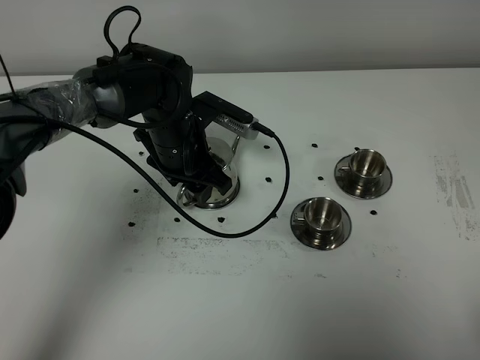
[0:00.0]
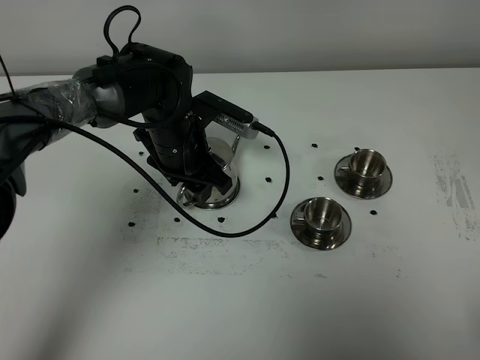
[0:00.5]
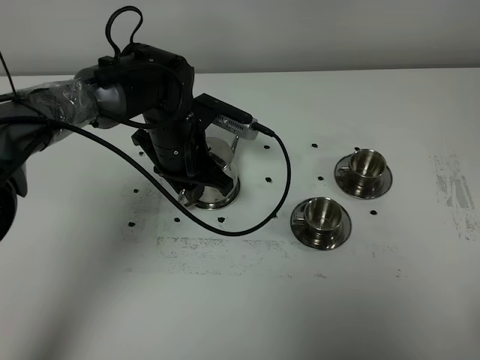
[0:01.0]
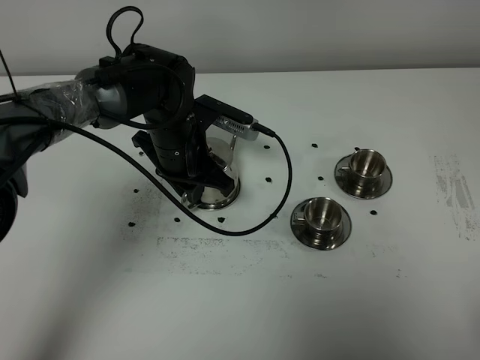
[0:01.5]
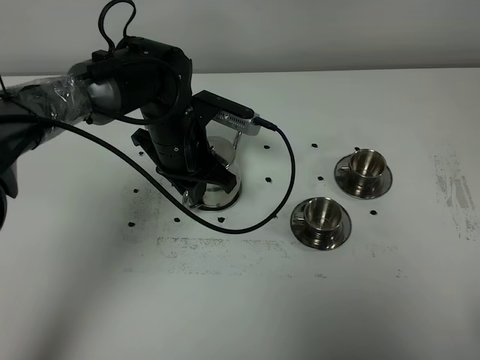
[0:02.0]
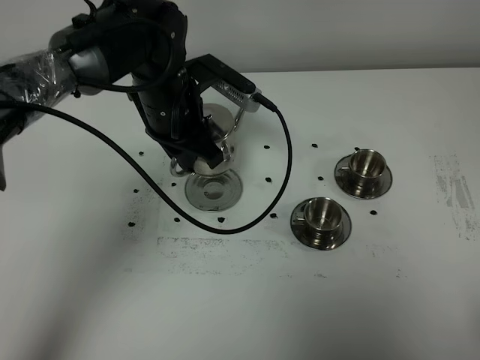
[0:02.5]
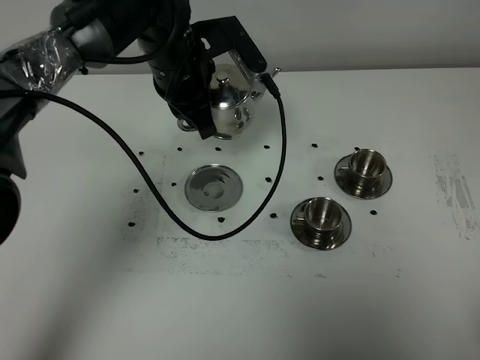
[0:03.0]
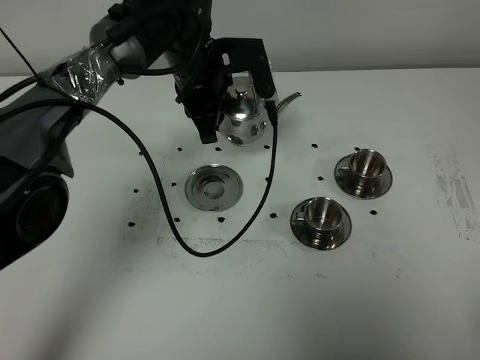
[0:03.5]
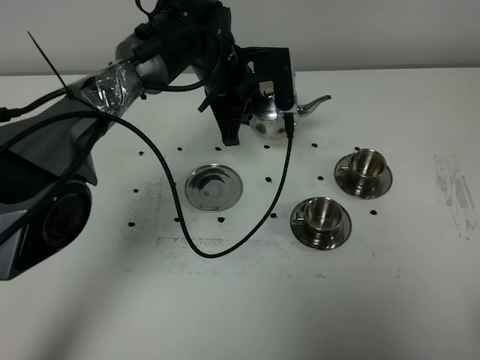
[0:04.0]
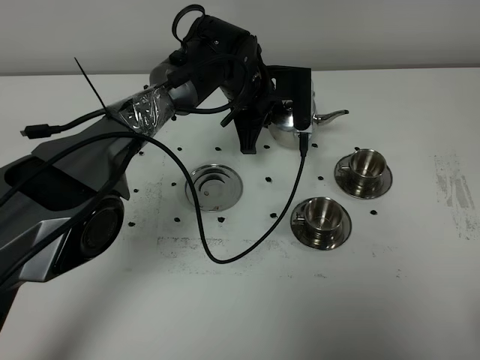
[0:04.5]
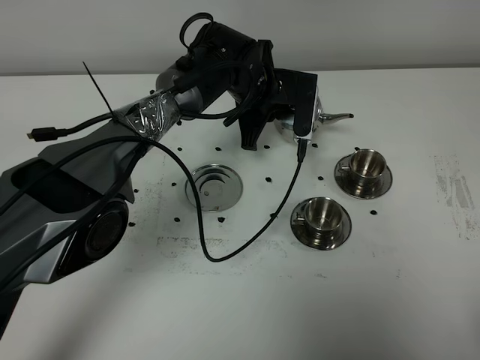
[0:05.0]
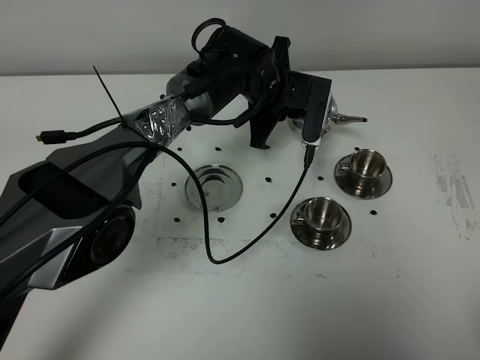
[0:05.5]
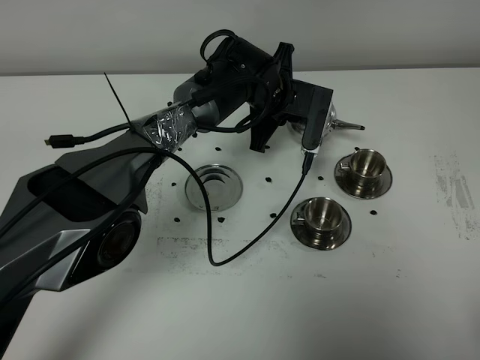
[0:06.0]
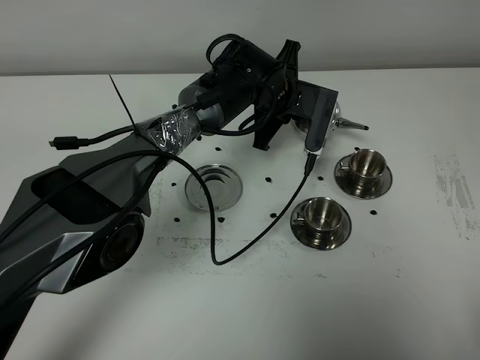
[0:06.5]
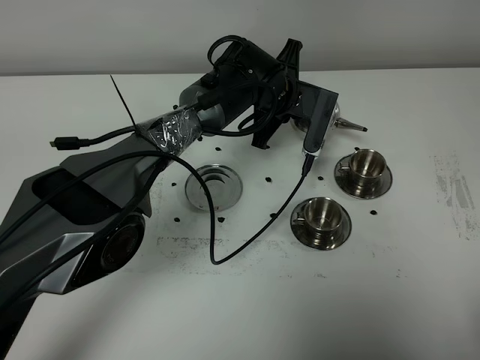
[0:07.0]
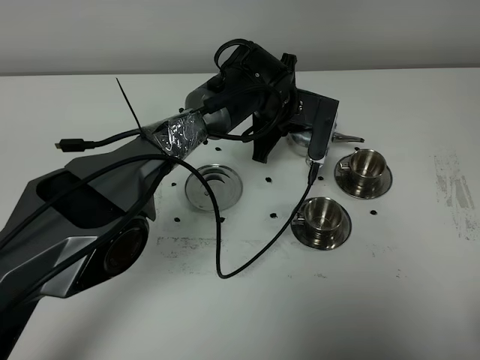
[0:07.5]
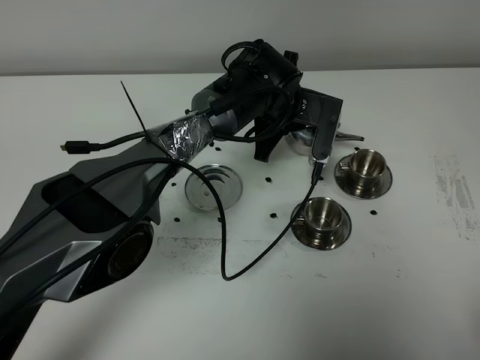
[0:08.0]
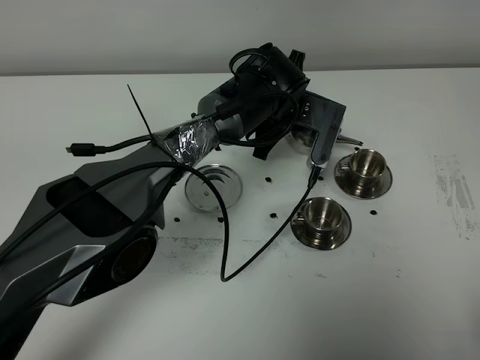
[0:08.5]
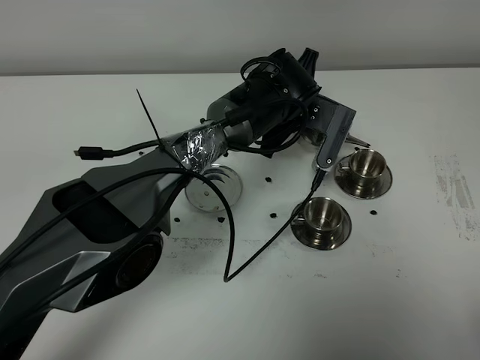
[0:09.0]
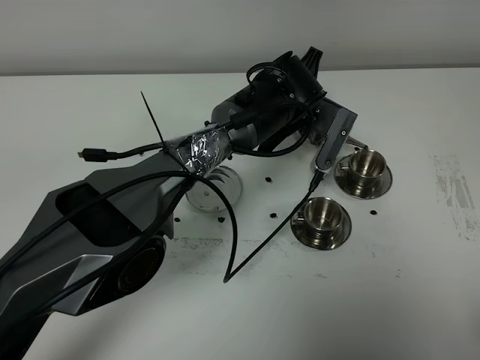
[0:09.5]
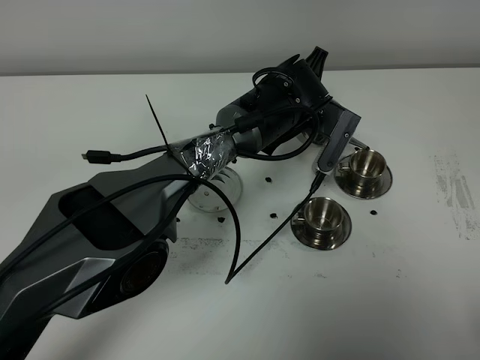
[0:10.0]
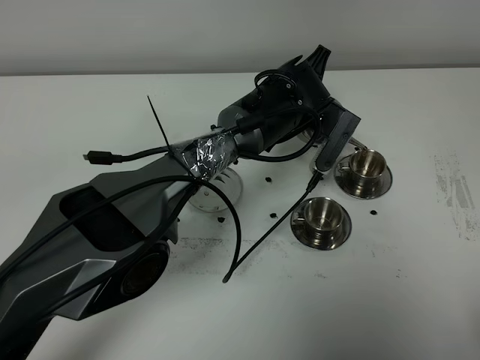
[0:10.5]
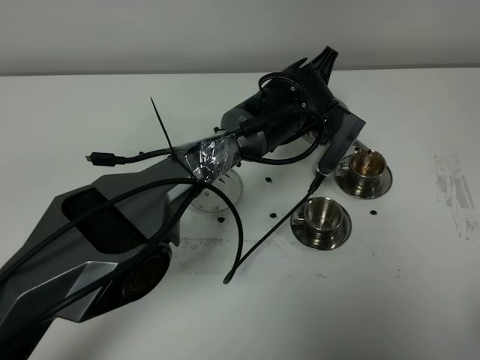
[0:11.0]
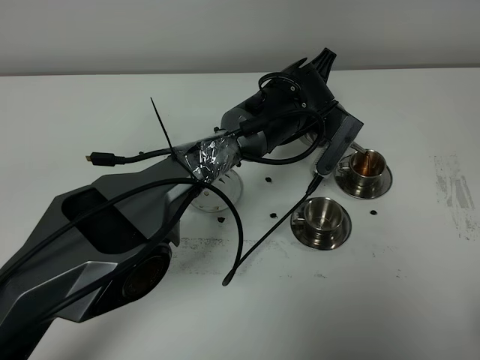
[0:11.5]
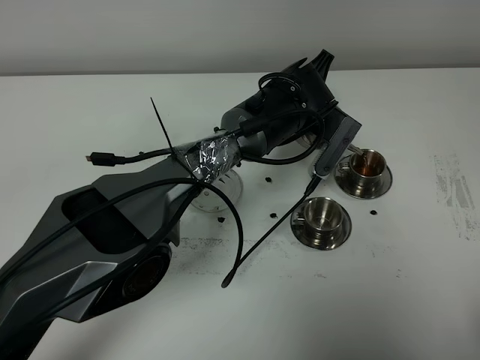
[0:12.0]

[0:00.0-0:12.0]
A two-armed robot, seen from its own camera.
Task of the whole recording: grasp the stainless steel teapot and pour the tea into the two stainless steel teacups one by one, put the stainless steel teapot back in its original place.
Step, 0:00.0 to 0:02.0: Pick up the teapot with the left gripper.
0:00.0 to 0:02.0: The left gripper closes up.
0:02.0 to 0:04.0: The left gripper heads forward and to the right, covering roughly 10 cm.
0:04.0 to 0:06.0: The left gripper shifts about 5 cm to the right.
0:06.0 to 0:10.0: The grippers make only small movements.
0:10.0 to 0:12.0: There are only small adjustments of the grippers.

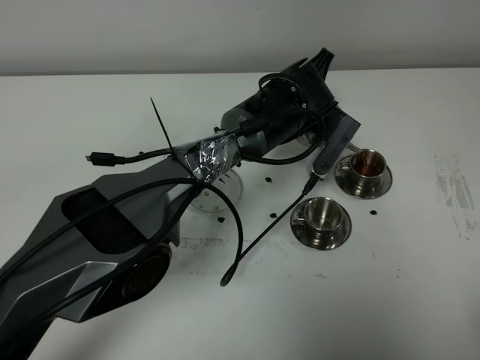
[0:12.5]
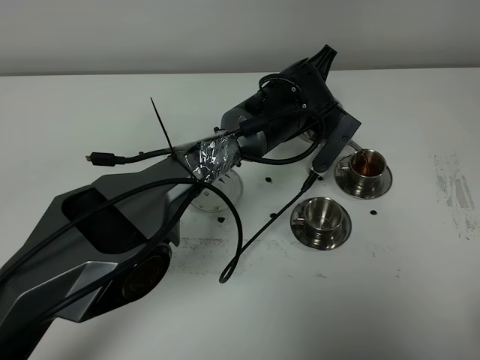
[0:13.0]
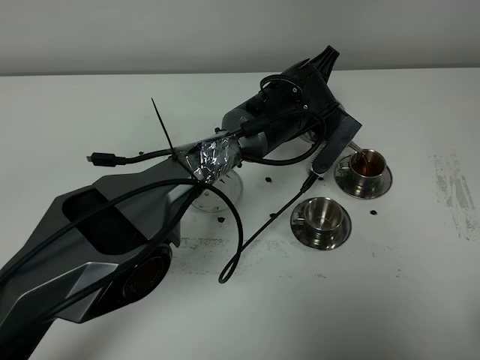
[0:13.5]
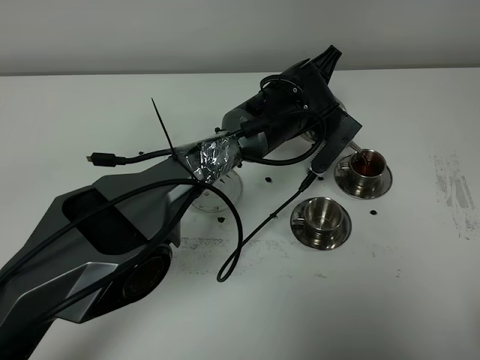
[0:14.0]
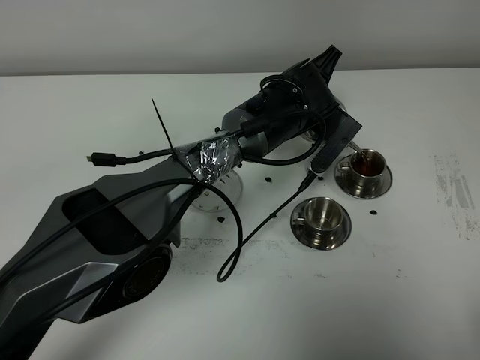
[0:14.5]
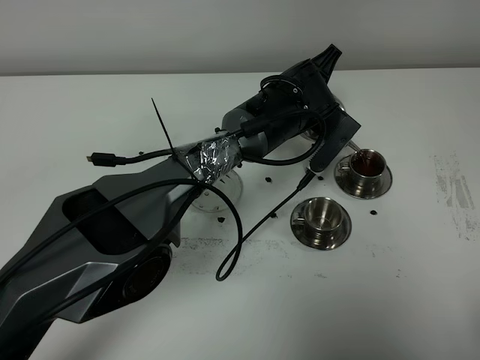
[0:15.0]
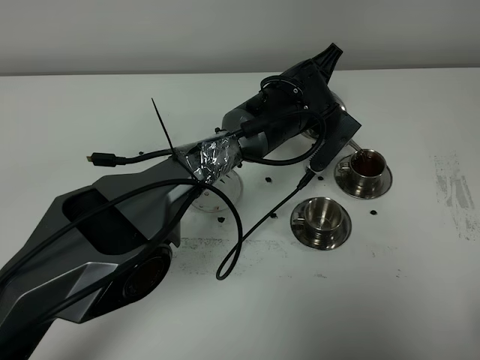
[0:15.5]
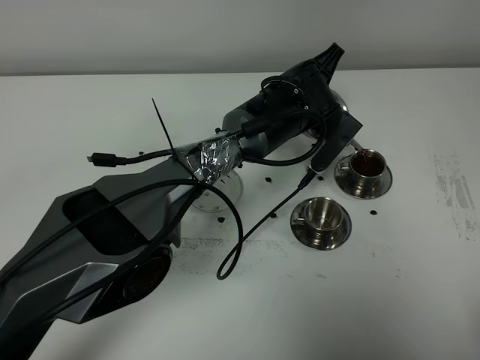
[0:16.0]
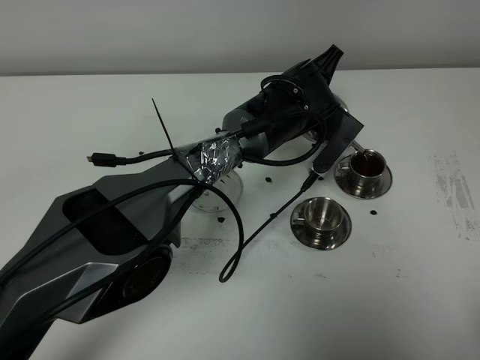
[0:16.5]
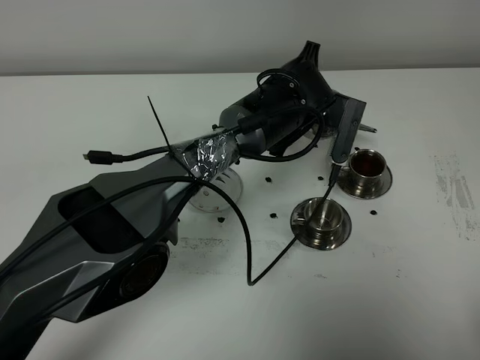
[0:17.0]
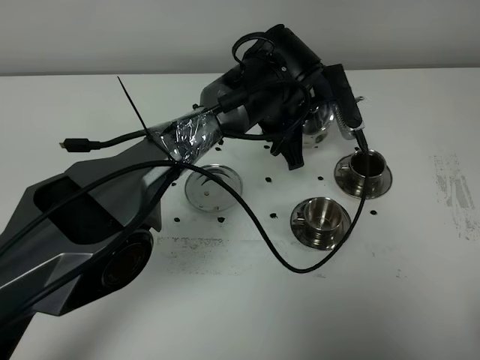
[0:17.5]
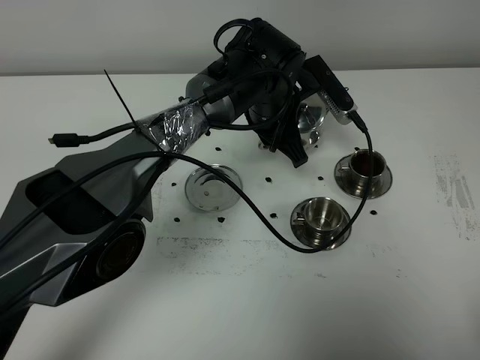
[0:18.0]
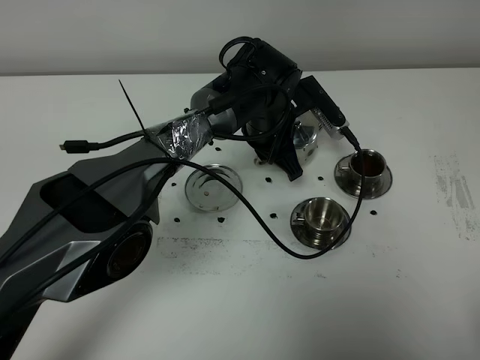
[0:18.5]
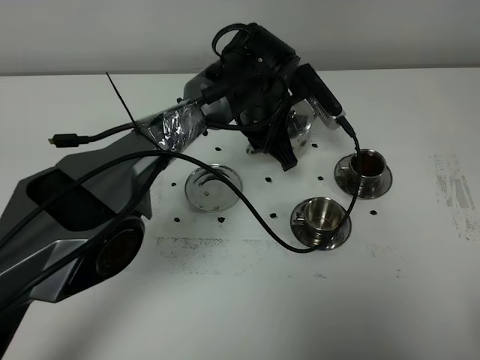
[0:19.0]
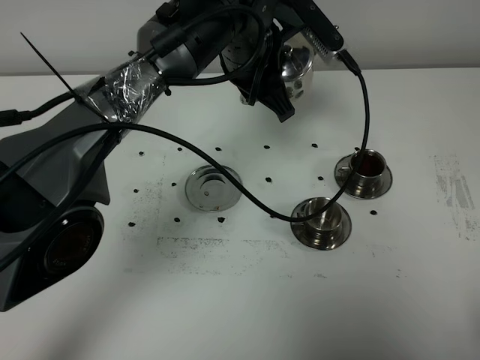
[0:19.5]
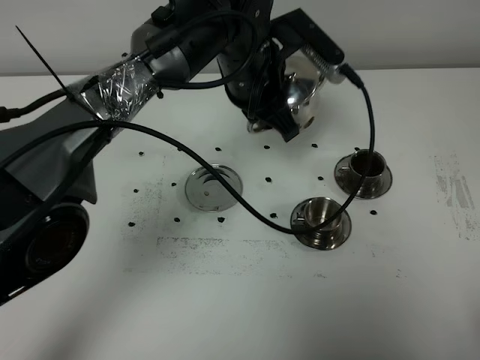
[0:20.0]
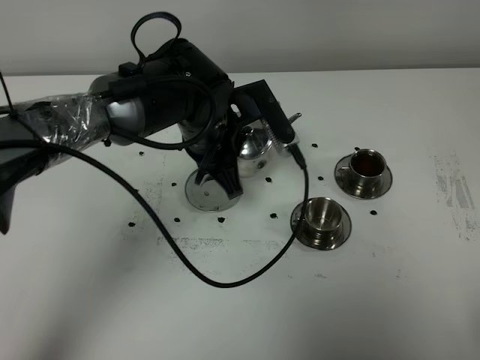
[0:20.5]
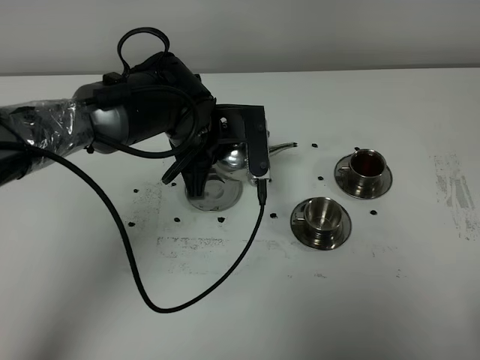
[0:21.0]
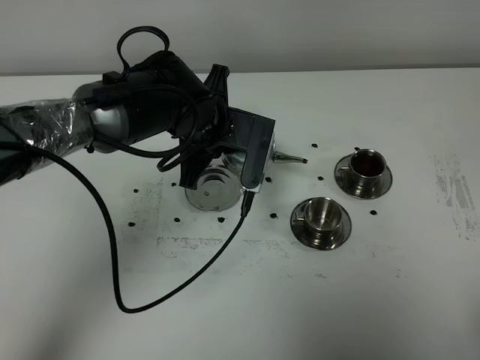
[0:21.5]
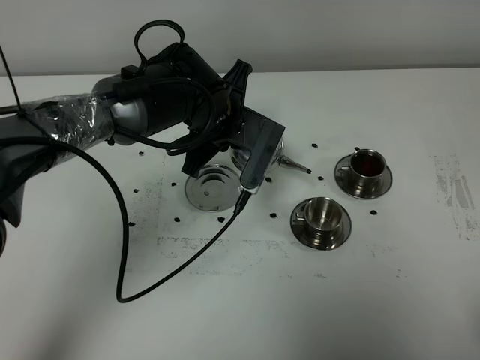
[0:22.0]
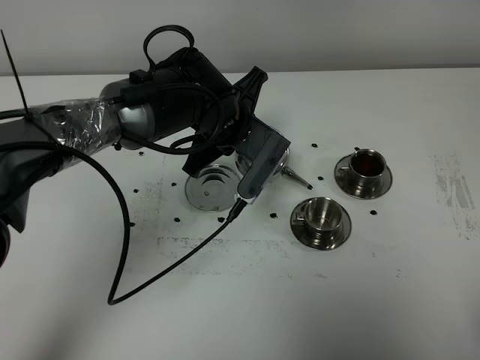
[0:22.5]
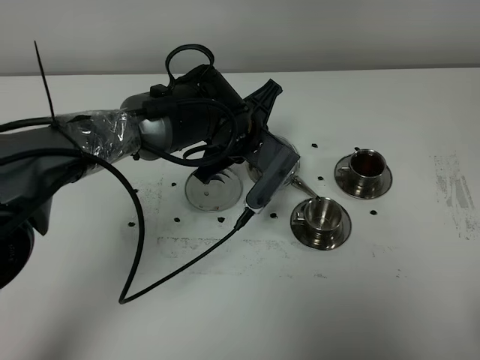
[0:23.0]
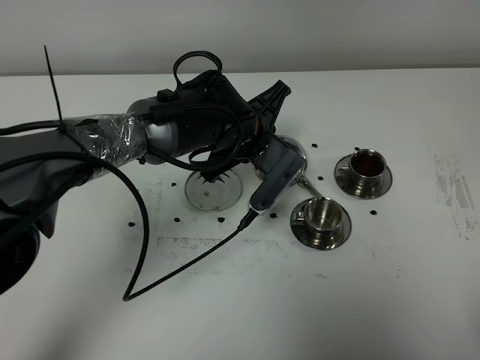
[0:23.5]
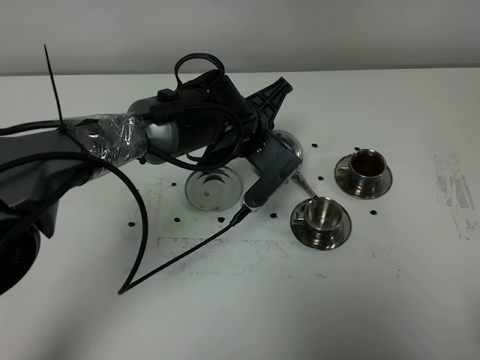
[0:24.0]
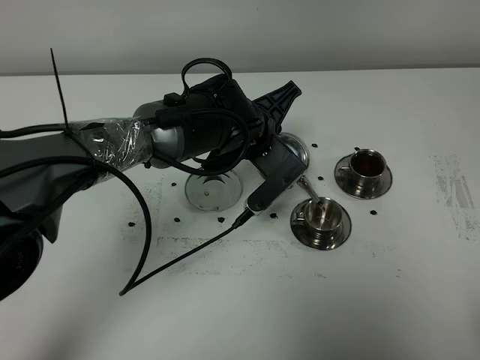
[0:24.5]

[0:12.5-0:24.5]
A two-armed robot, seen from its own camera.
Task of the whole recording: grasp the stainless steel teapot and pour the tea into the two stainless steel teacups one by one, put the stainless steel teapot back in its original place.
Step, 0:12.5 to 0:16.5: Pour tea into the teacup with the left gripper.
0:12.5 to 0:14.5: There are only small adjustments of the grippers.
0:14.5 to 0:16.5: The two grippers keep their place.
0:16.5 to 0:18.5: The left gripper shifts by roughly 5 cm.
0:18.5 to 0:20.5: The left gripper shifts some 10 cm to the left, backward and upward.
0:22.5 to 0:24.5: There are only small adjustments of the grippers.

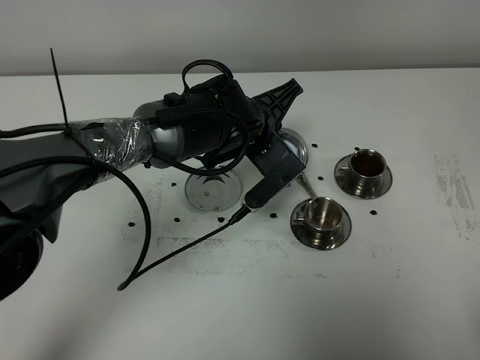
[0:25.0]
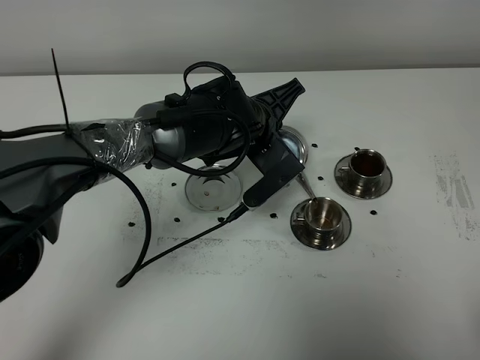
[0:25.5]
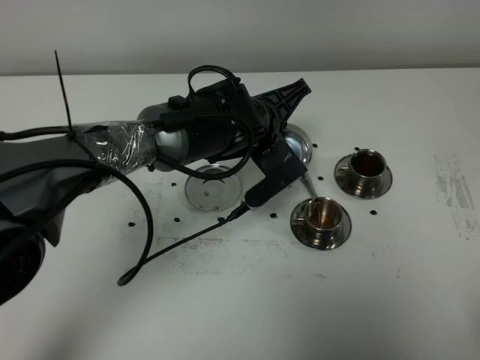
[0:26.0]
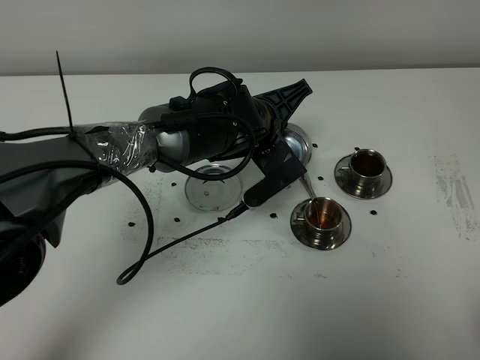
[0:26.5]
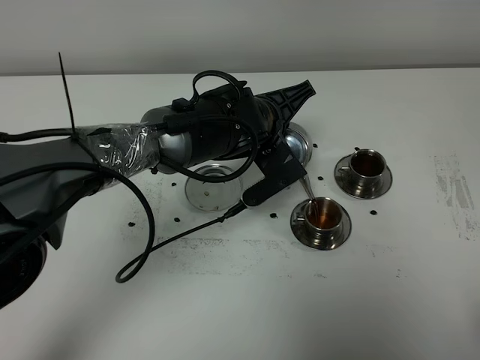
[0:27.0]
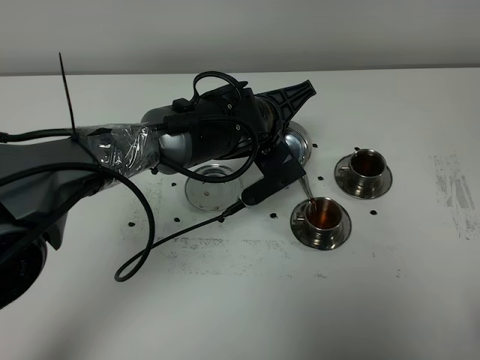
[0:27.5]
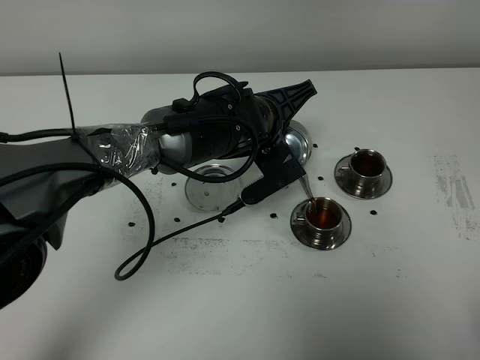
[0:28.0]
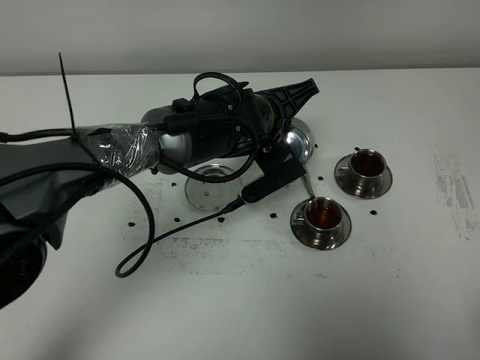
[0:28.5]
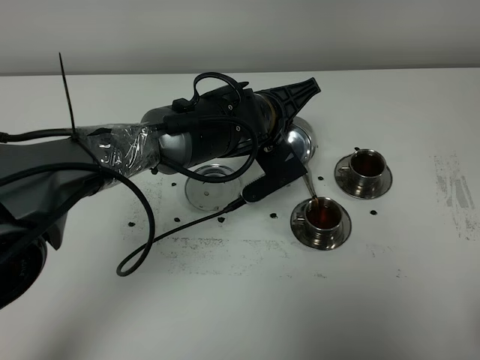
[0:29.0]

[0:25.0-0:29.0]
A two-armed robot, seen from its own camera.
Task of the whole recording: grasp the stainless steel teapot and pour the tea into the two stainless steel teacups one by one, put the stainless steel teapot back in its original place.
0:25.0 to 0:27.0: The grippers make only small movements.
0:27.0 to 0:29.0: The two grippers keep their place.
